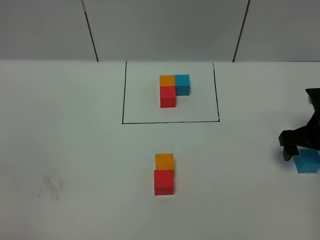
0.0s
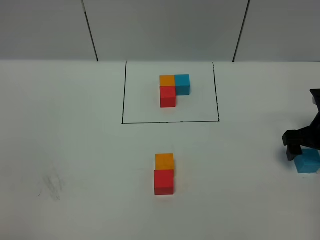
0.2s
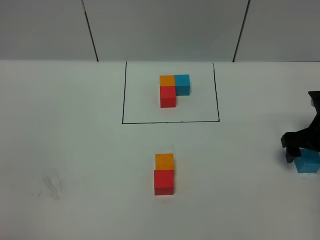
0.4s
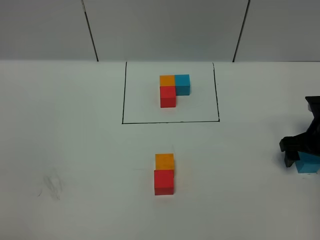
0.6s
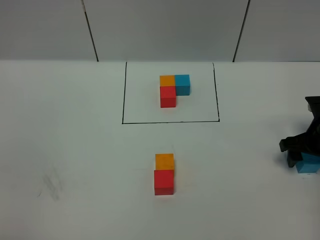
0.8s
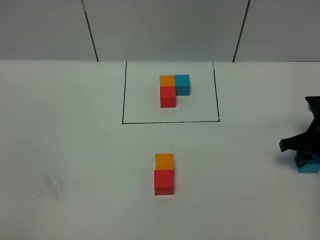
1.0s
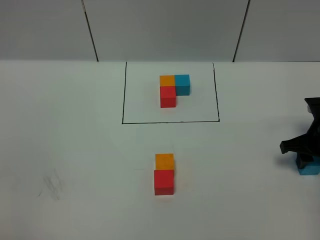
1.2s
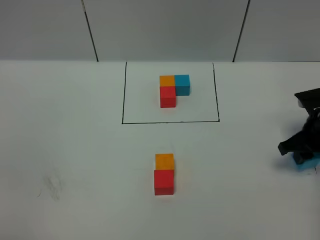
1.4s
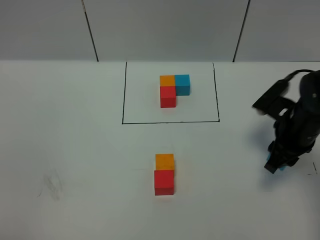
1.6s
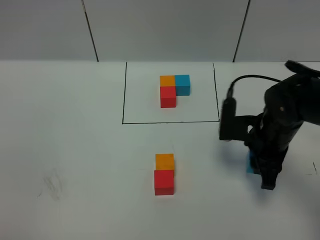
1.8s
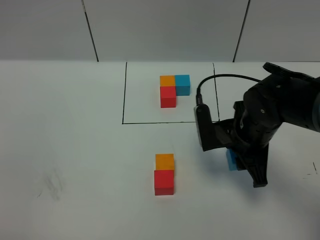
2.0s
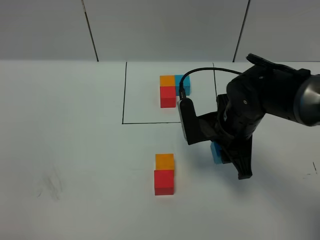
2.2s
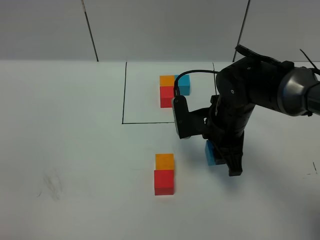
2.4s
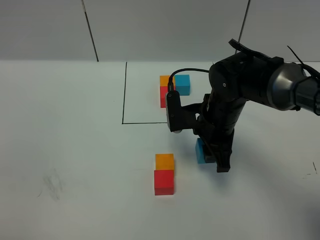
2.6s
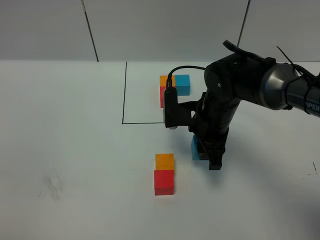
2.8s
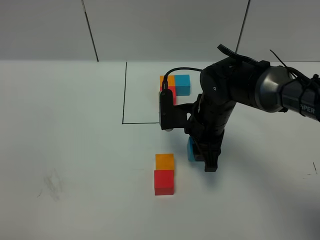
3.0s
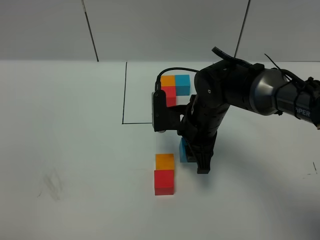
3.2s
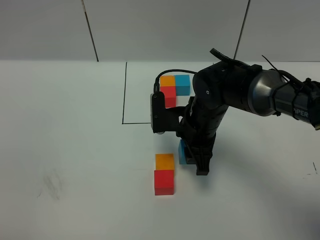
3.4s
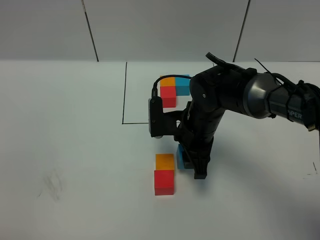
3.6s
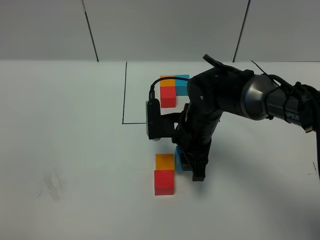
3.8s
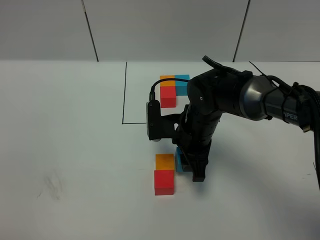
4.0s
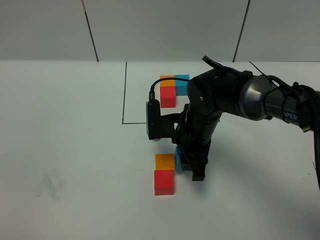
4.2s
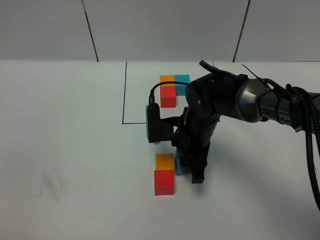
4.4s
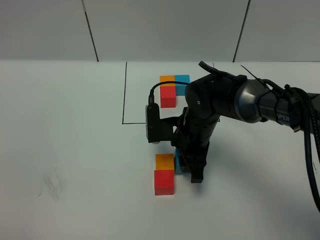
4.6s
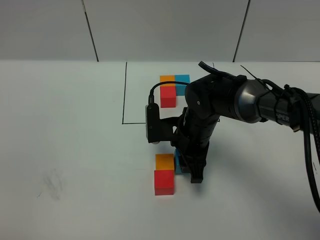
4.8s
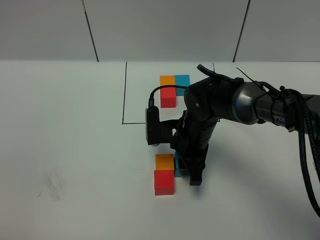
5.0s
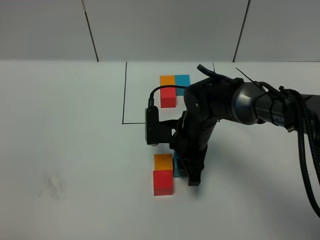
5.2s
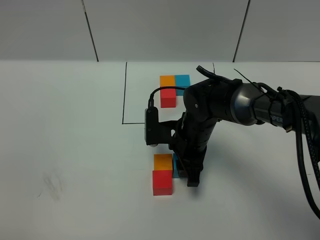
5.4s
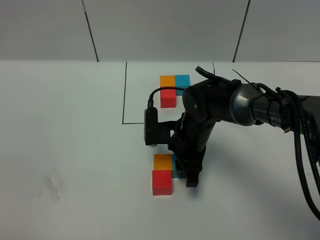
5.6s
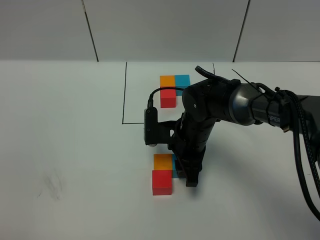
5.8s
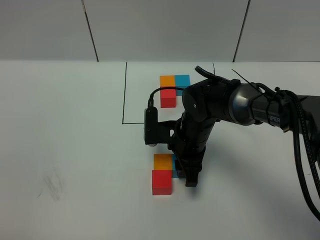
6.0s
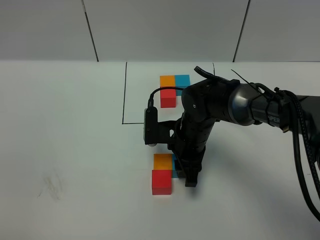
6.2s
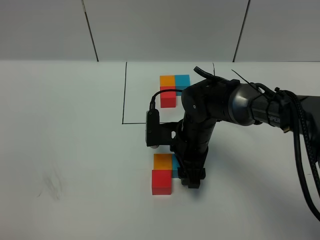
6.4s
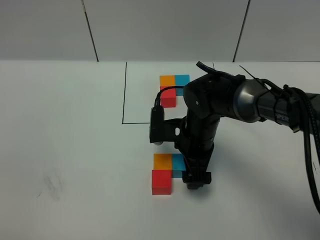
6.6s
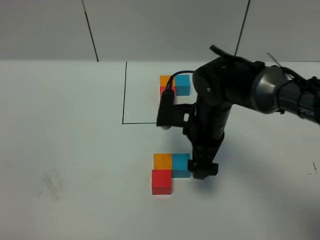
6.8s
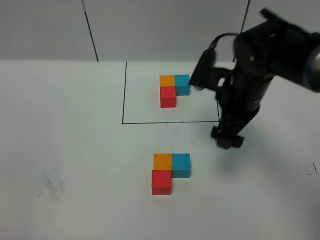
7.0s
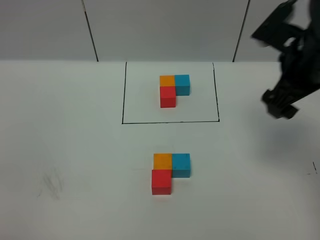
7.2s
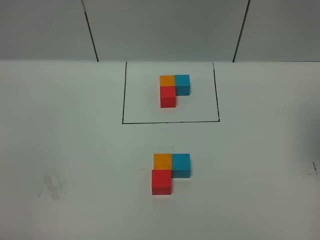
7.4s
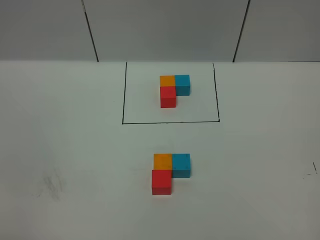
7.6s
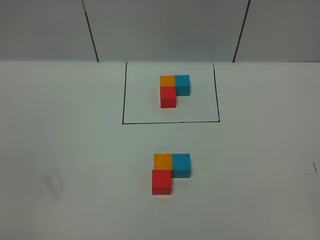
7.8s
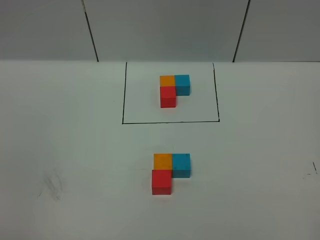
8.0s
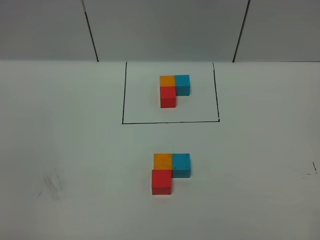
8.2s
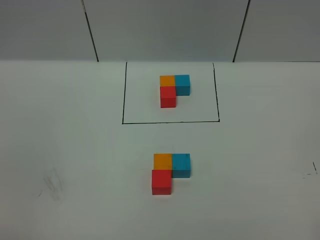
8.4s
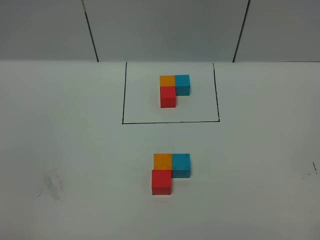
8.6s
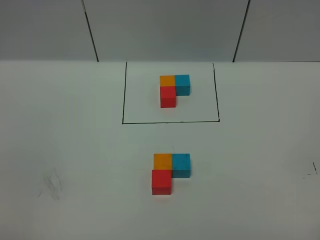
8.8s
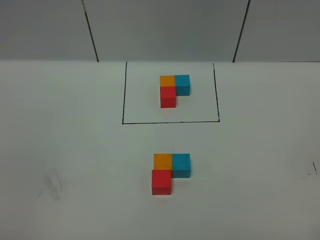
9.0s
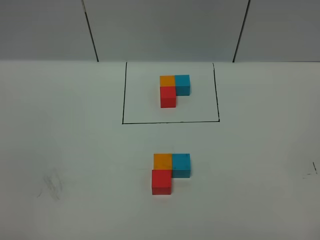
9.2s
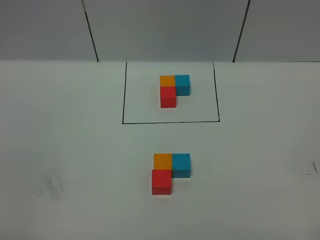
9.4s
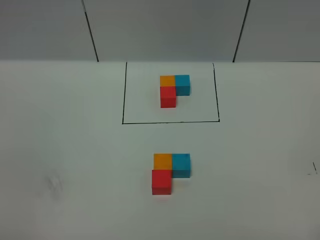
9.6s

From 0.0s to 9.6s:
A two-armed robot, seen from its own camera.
Task of the whole recording: According to the building block template in front, assemble the scattered blocks together.
Step, from 0.0s to 6.6s: Put the blue cube on the right of the orange cube.
From 0.0s to 1.6s: The right gripper goes roughly 10 cm to the left, and closes.
From 1.6s to 3.2s: The right gripper is displaced to the left by roughly 15 cm.
From 3.2s to 6.4s: The grippers move only a little.
From 6.4s to 8.0s: The right gripper heads backward, to the right and upward, covering some 50 cm.

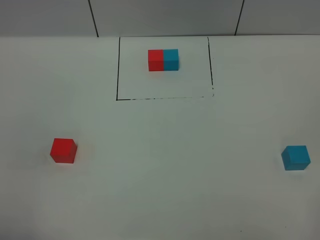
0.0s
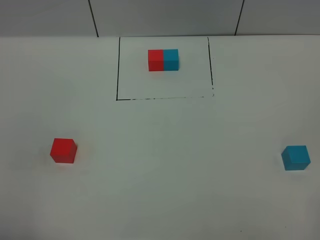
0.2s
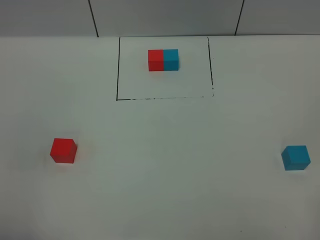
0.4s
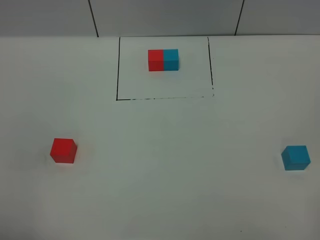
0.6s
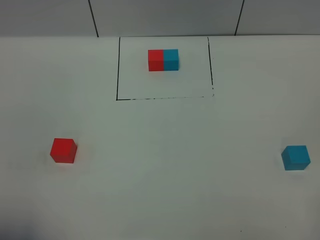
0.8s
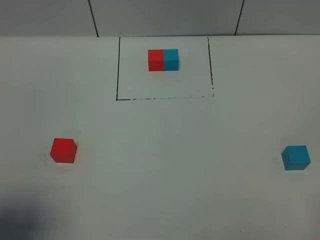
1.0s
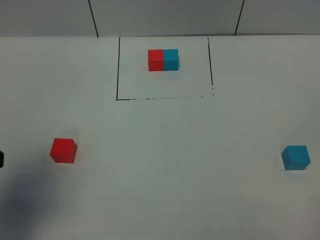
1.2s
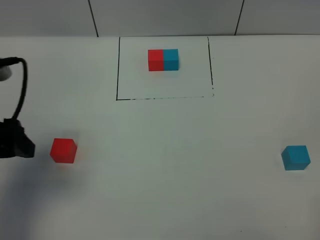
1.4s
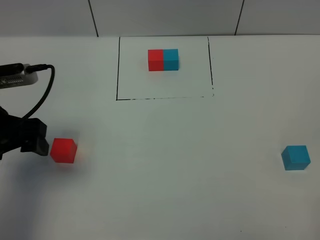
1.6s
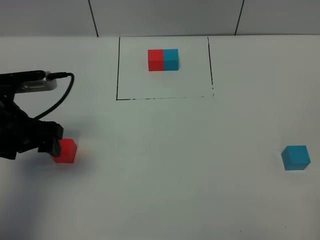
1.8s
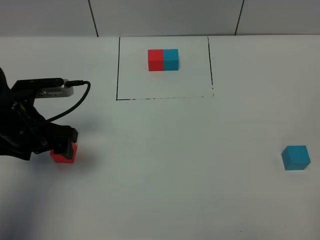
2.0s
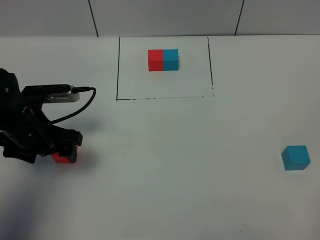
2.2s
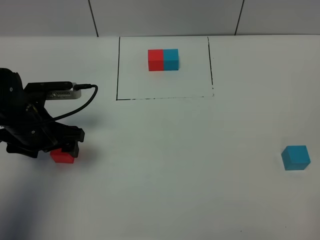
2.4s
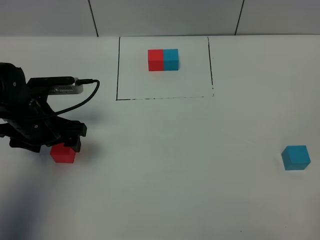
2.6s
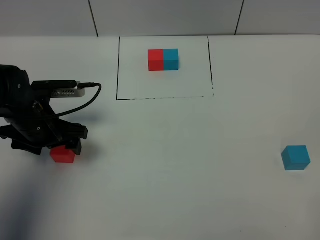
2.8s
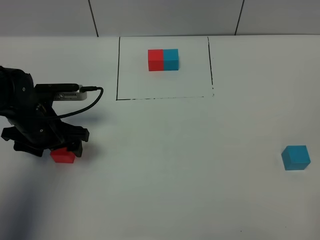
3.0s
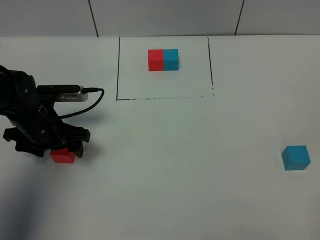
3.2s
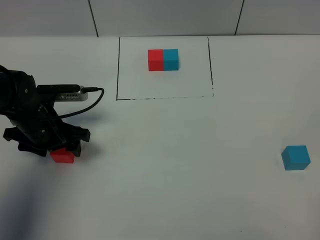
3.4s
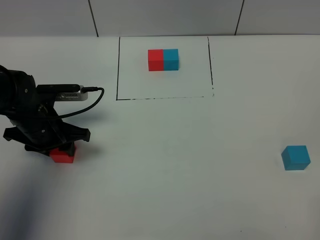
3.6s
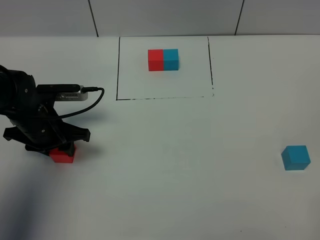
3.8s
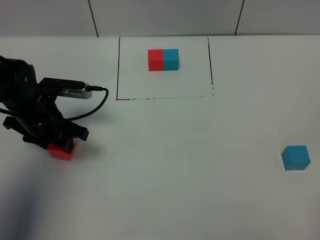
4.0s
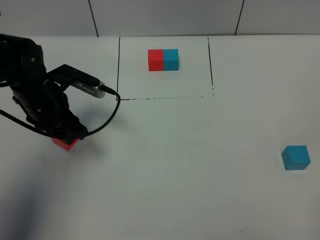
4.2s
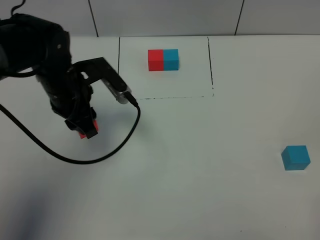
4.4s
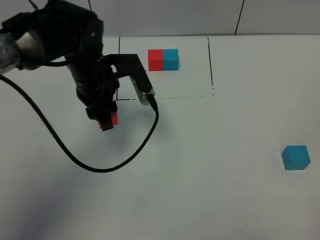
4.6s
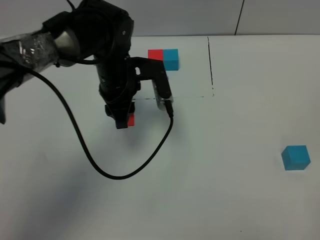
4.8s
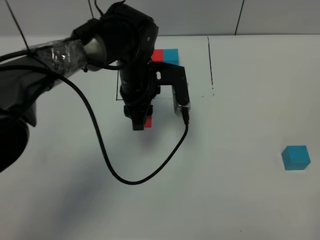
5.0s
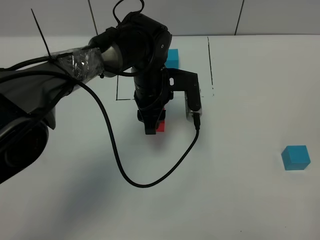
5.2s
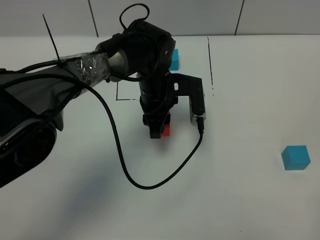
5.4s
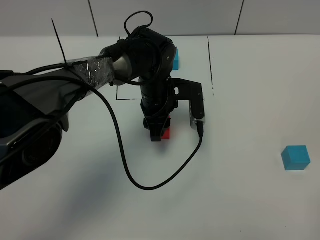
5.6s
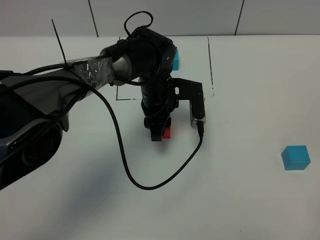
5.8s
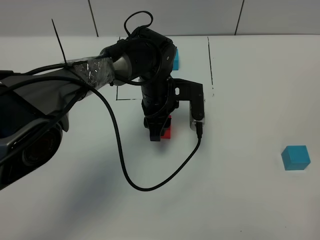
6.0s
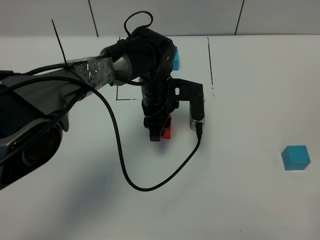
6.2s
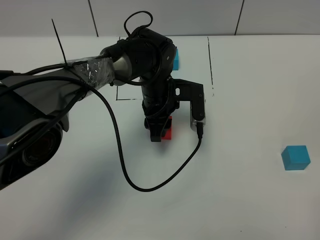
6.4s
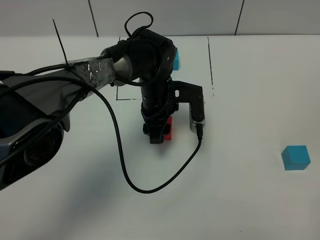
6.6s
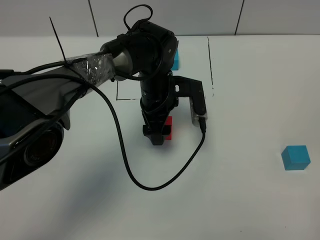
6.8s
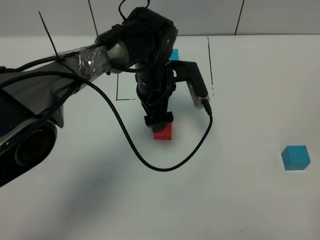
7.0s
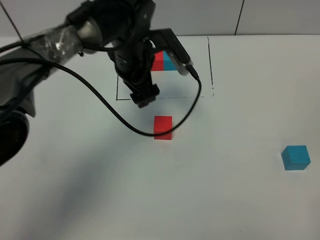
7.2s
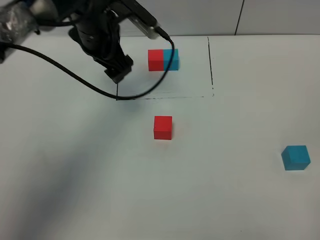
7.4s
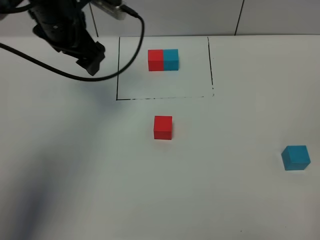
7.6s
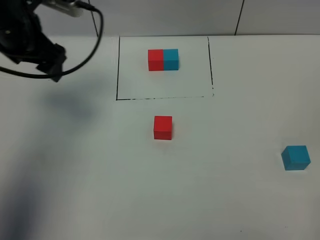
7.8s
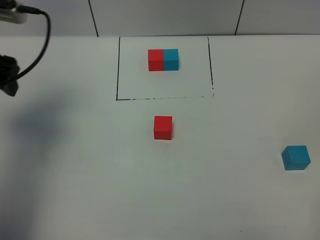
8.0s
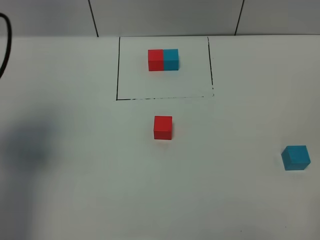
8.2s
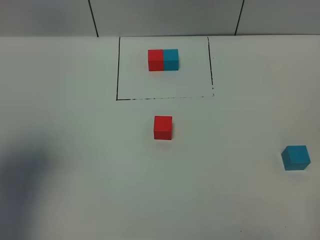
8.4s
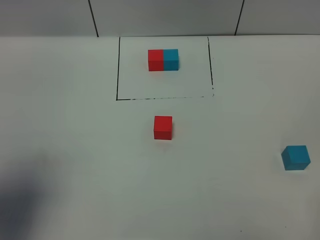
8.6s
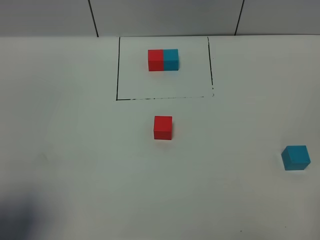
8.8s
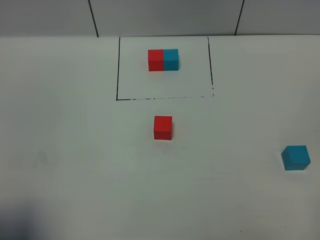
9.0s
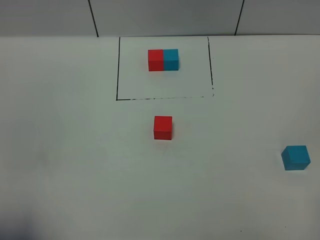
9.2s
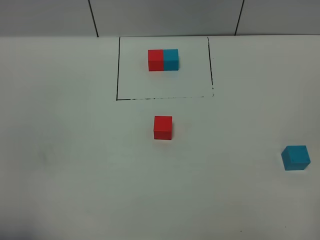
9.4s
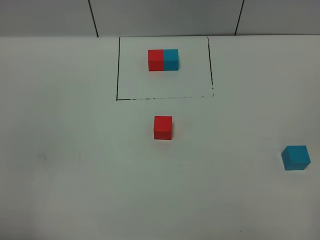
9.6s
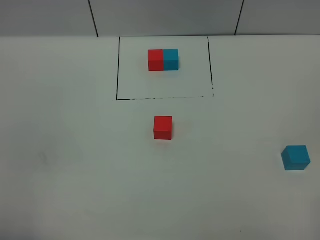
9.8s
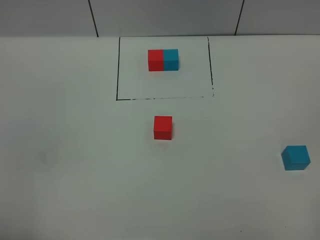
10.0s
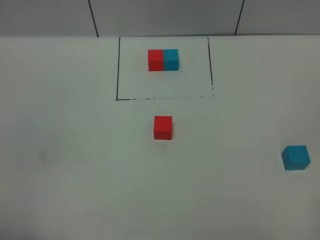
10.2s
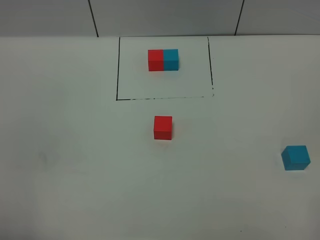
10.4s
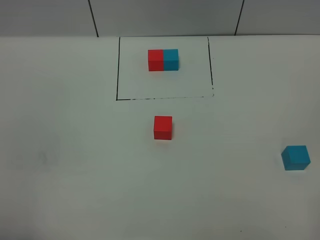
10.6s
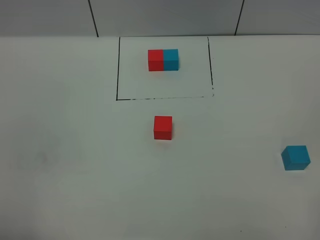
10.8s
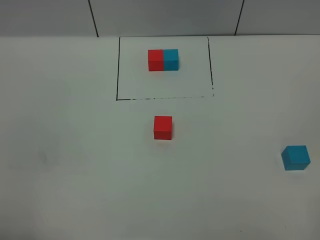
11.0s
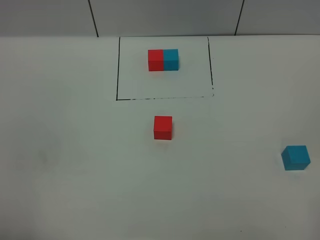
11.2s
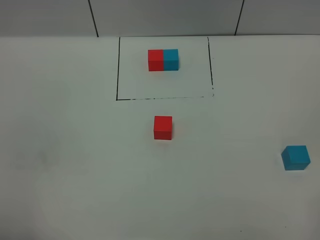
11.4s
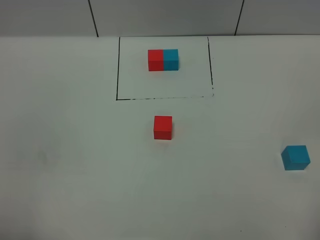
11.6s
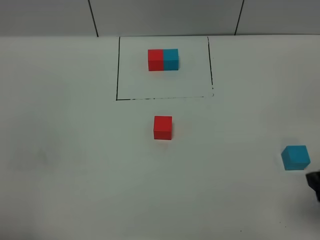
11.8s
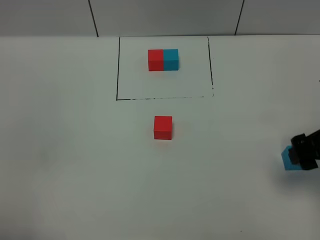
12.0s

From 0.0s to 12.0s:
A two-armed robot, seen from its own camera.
Task of the whole recording: According to the building block template in front, assemble the scattered blocks together.
Step, from 1.2s to 6.8s: Put the red cube in the center of the table.
From 0.0s to 1.6s: The left gripper moves forward, some 25 cm.
From 1.6s to 3.0s: The left gripper goes about 15 cm downward and forward.
From 3.0s to 4.4s: The left gripper is displaced to the right and upward by approximately 10 cm, and closes up.
From 4.4s to 6.0s: The left gripper shifts roughly 15 cm to the right and downward.
From 6.0s to 7.6s: The left gripper is displaced to the left and upward by some 25 cm, and opens its fingers.
From 7.6s to 9.0s: The left gripper heads backward, covering about 35 cm.
From 9.0s to 10.4s: The left gripper shifts by approximately 5 cm.
From 10.4s to 12.0s: The right gripper heads forward, covering approximately 25 cm.
